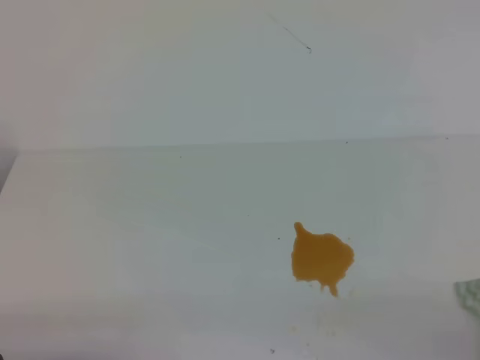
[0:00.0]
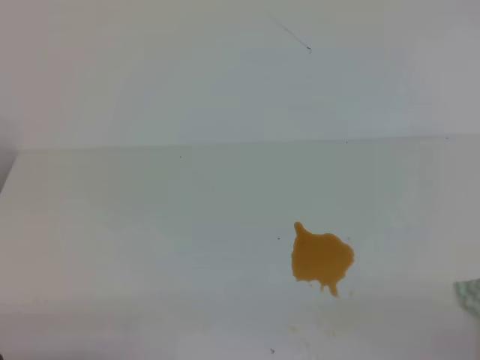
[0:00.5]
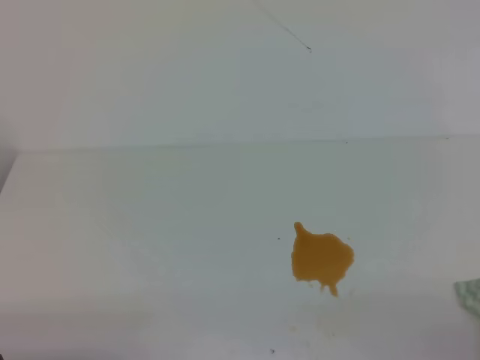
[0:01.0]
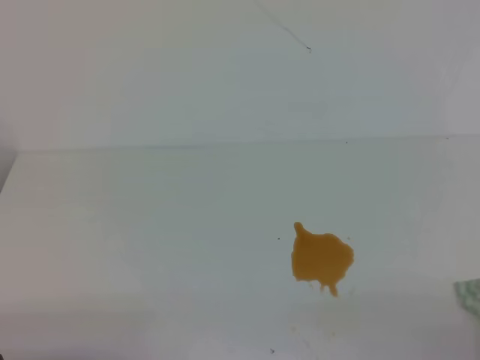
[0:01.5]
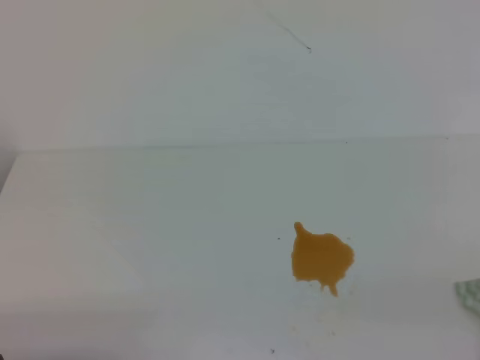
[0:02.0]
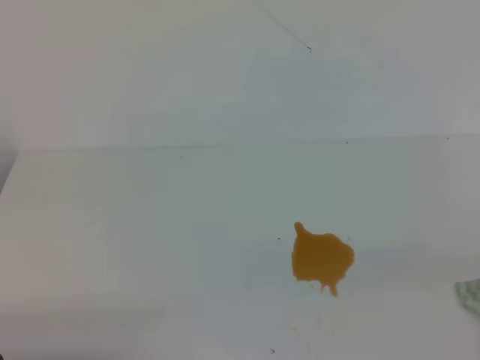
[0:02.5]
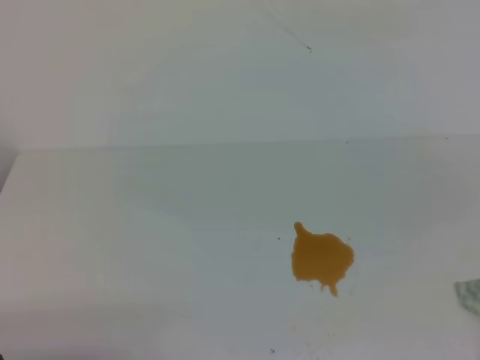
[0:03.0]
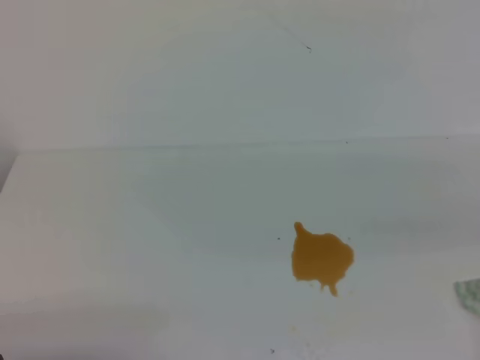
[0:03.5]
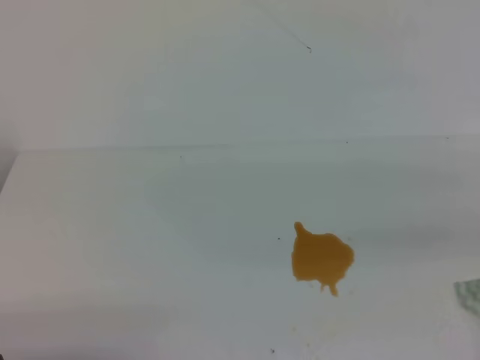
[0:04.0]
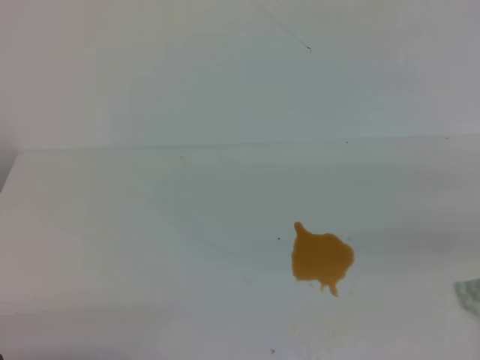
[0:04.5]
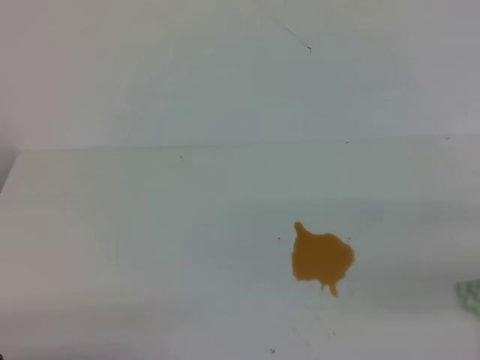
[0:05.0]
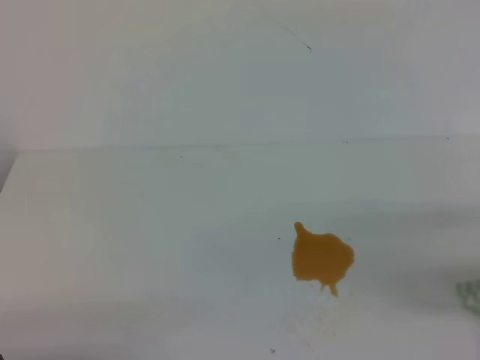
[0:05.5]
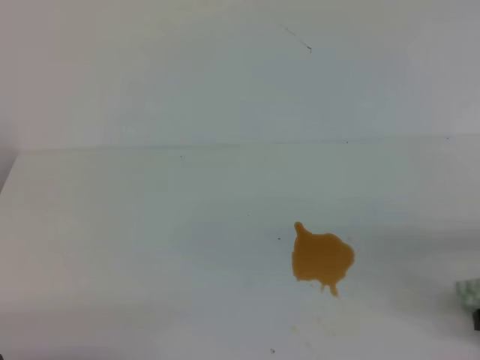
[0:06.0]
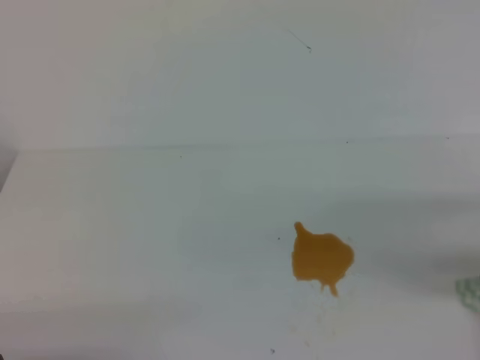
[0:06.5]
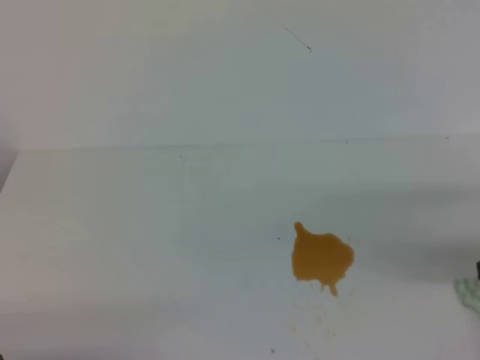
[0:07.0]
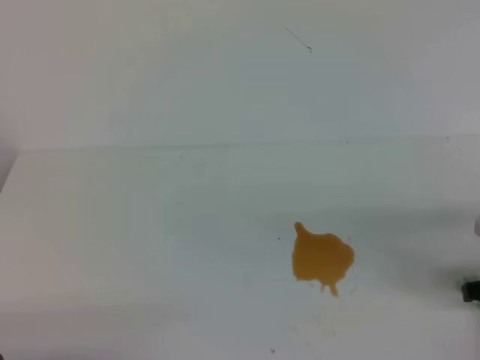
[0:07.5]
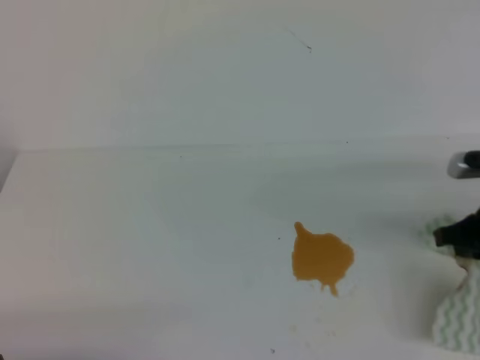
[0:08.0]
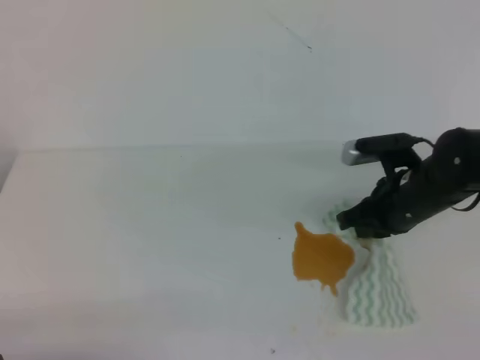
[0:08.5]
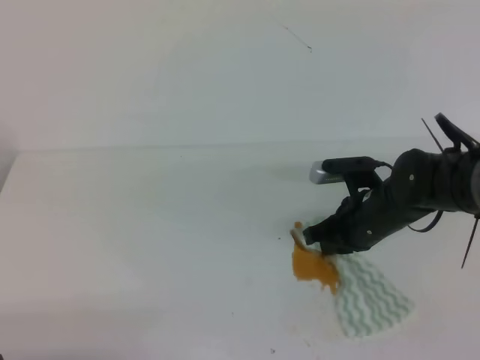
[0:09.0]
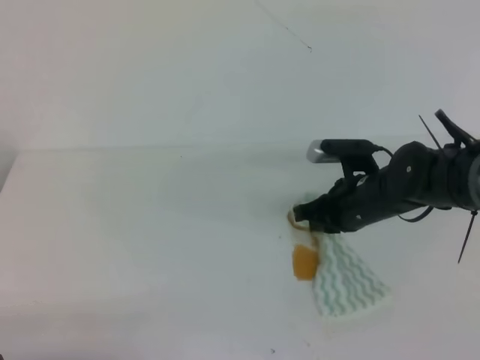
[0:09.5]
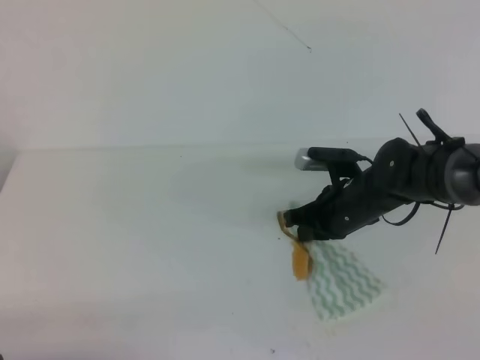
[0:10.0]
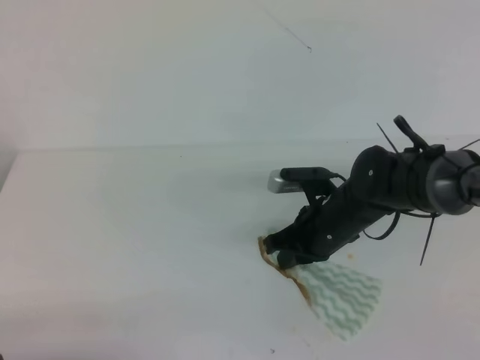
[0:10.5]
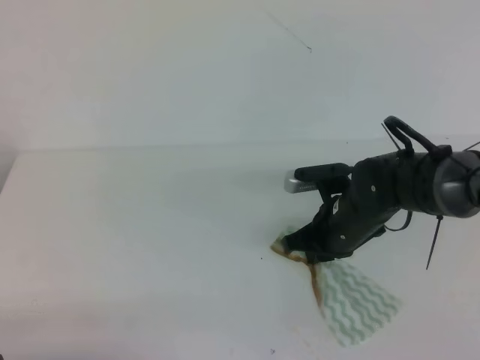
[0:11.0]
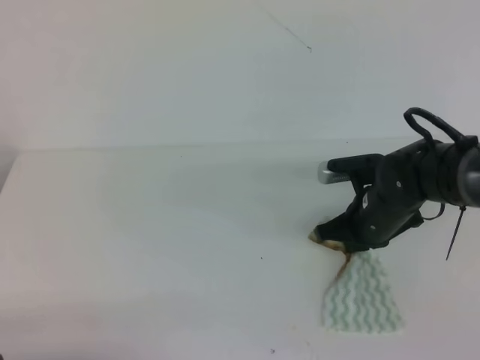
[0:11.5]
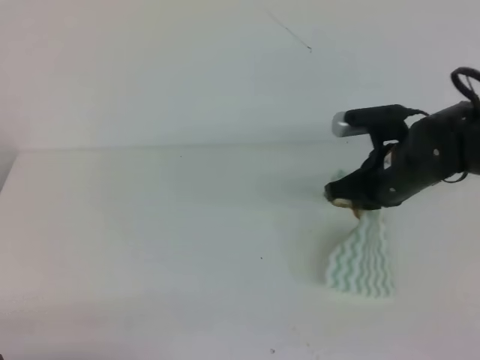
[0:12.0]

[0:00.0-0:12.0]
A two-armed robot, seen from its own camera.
0:04.0 to 0:06.0: The right gripper moves downward and forward, roughly 20 cm, and opens.
0:06.0 to 0:08.0: The right gripper moves forward, approximately 5 cm, and closes up.
0:08.0 to 0:10.0: The right gripper travels to the left and forward by roughly 15 cm.
0:10.0 to 0:12.0: The right gripper heads upward, covering some 5 cm.

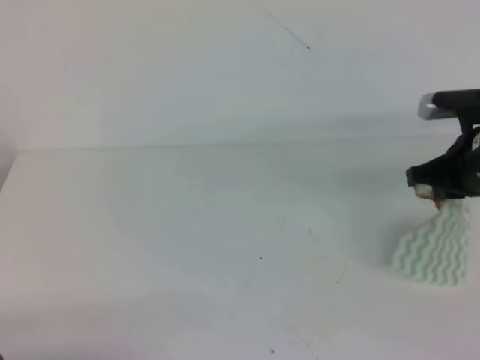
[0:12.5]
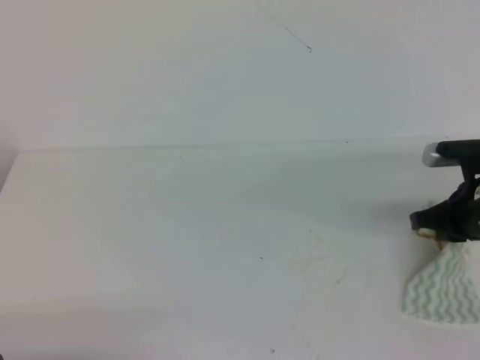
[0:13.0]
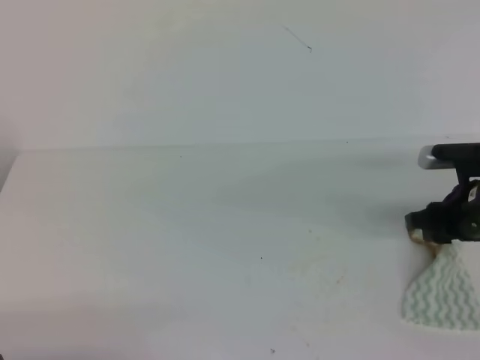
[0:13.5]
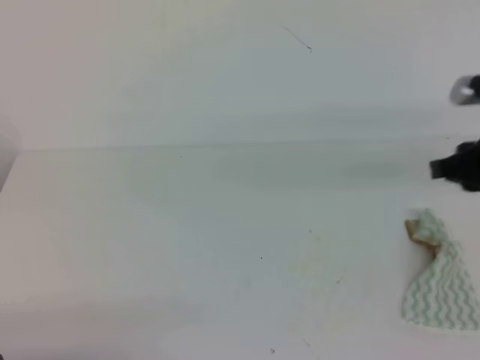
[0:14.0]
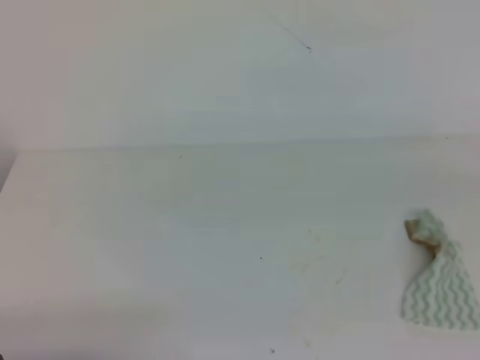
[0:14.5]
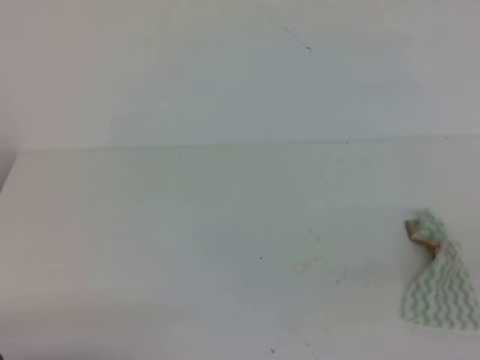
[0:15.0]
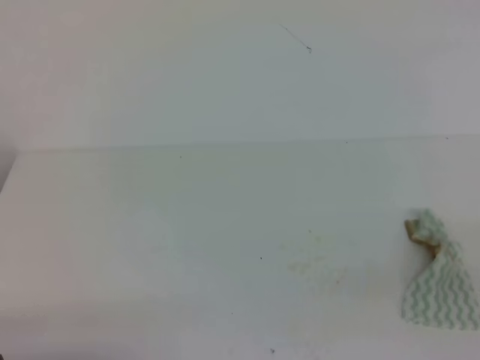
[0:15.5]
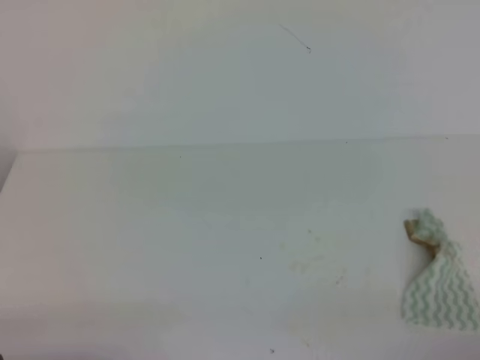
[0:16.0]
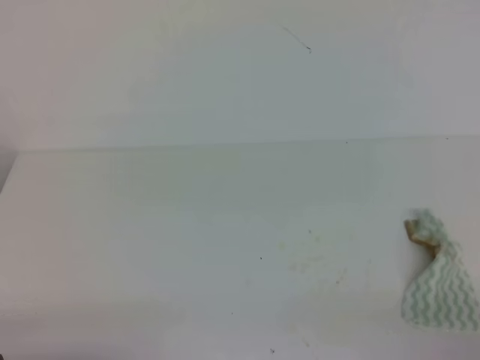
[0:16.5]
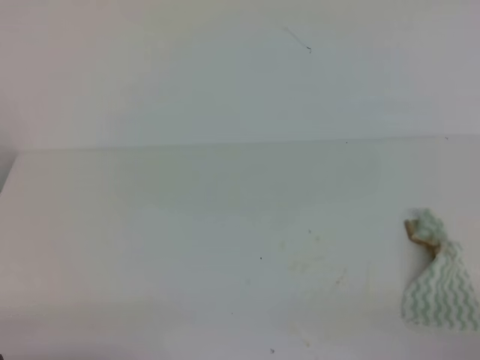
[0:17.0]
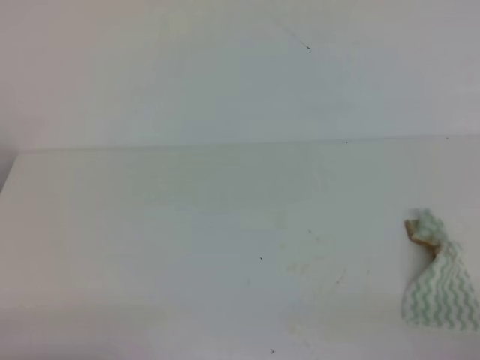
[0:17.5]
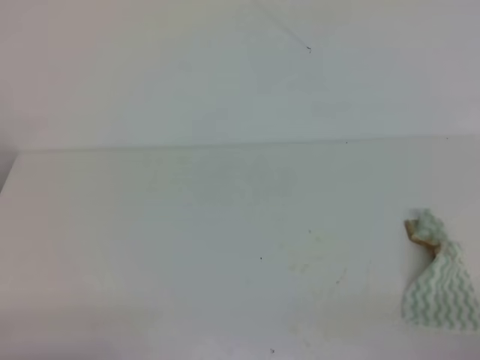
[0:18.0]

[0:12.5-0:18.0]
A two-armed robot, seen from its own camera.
0:12.5 to 0:14.5: The right gripper shifts some 25 cm backward and upward, and opens and closes again.
0:14.5 to 0:16.0: The right gripper heads downward and backward, covering roughly 20 cm.
